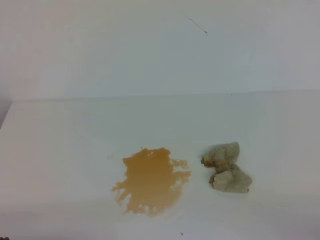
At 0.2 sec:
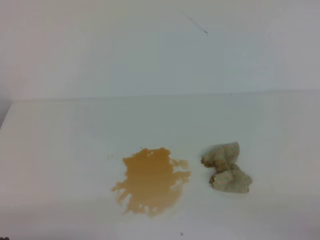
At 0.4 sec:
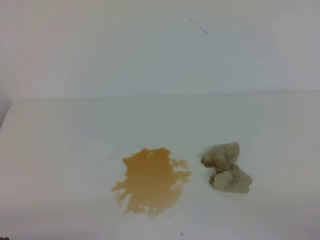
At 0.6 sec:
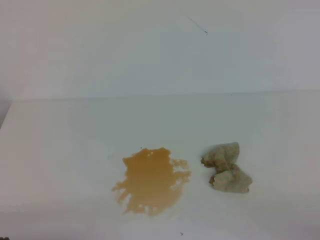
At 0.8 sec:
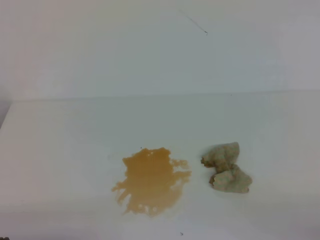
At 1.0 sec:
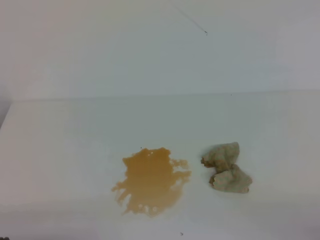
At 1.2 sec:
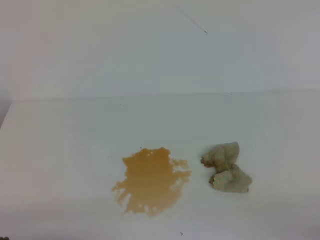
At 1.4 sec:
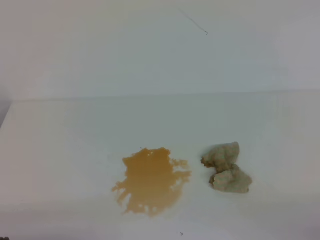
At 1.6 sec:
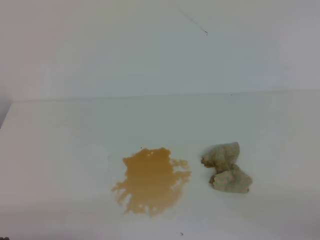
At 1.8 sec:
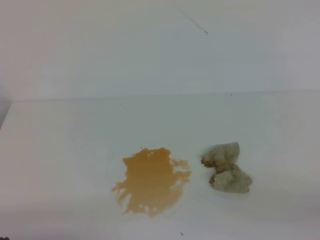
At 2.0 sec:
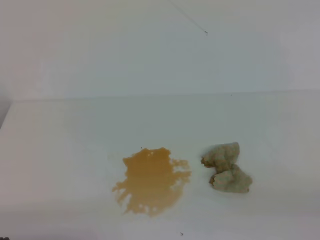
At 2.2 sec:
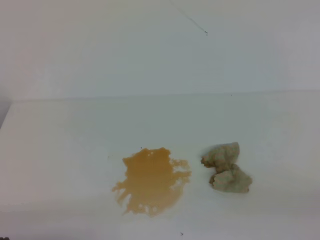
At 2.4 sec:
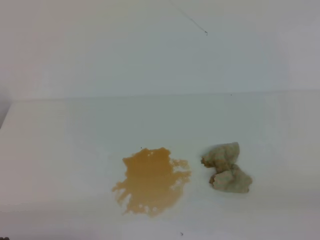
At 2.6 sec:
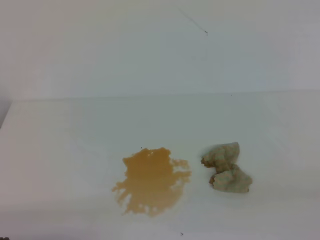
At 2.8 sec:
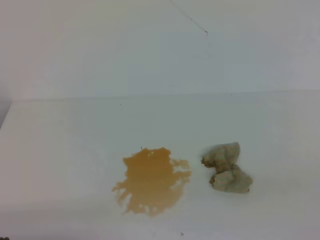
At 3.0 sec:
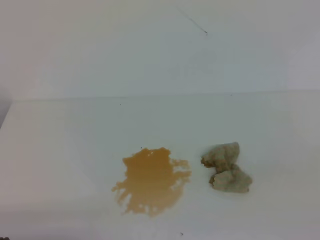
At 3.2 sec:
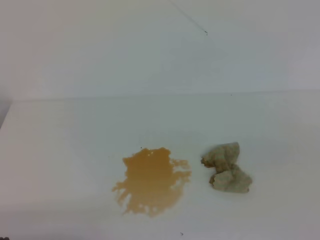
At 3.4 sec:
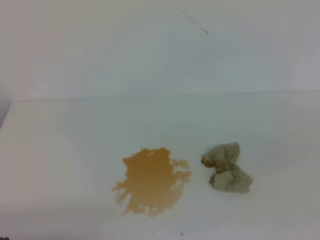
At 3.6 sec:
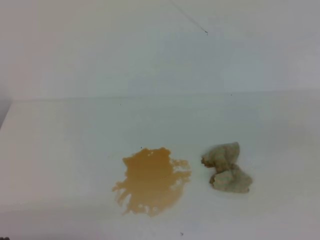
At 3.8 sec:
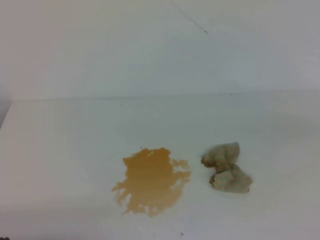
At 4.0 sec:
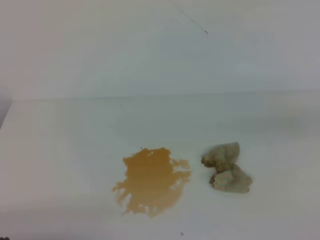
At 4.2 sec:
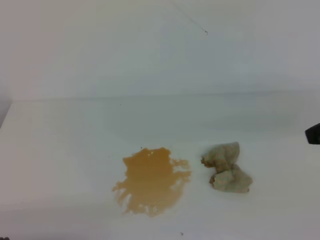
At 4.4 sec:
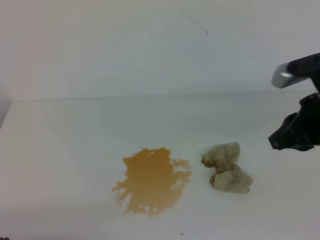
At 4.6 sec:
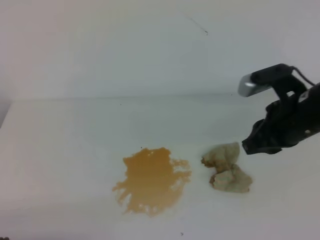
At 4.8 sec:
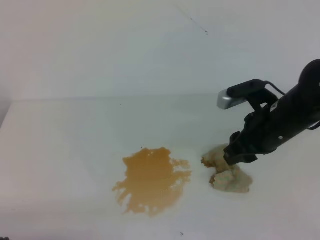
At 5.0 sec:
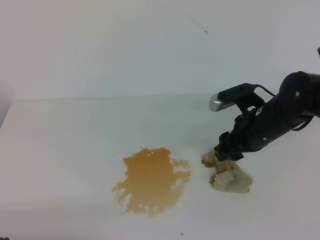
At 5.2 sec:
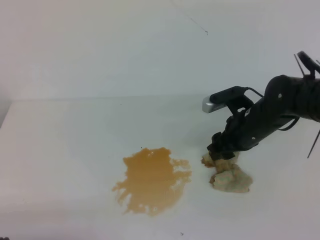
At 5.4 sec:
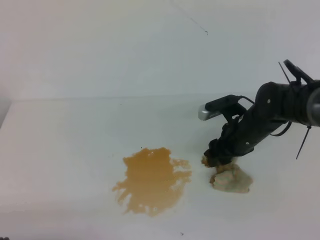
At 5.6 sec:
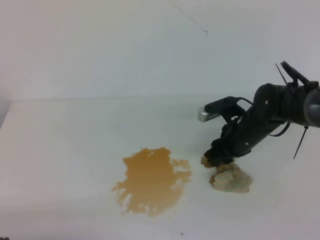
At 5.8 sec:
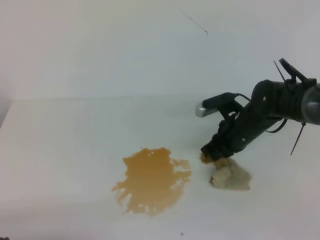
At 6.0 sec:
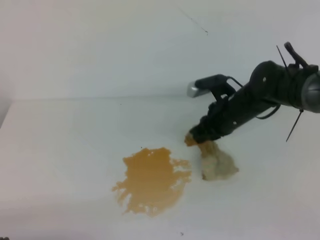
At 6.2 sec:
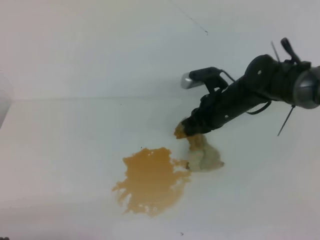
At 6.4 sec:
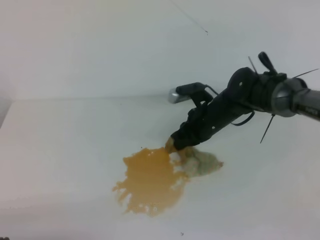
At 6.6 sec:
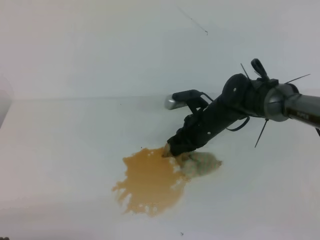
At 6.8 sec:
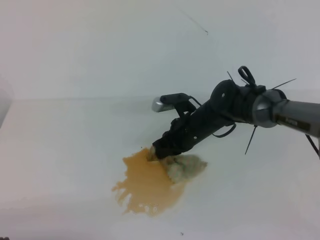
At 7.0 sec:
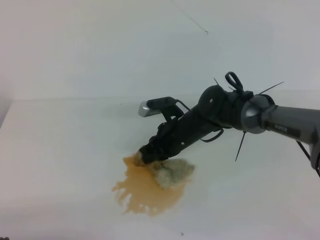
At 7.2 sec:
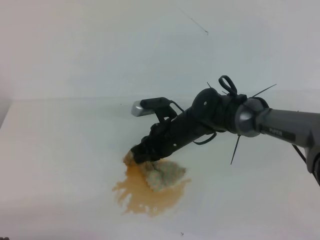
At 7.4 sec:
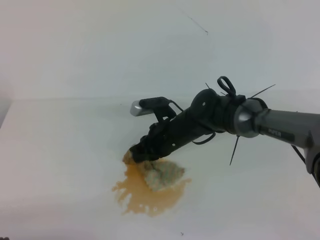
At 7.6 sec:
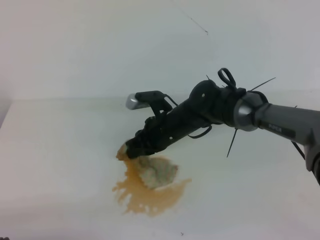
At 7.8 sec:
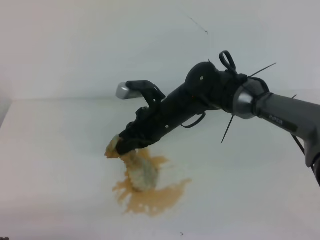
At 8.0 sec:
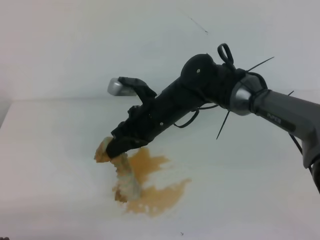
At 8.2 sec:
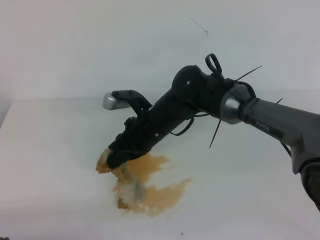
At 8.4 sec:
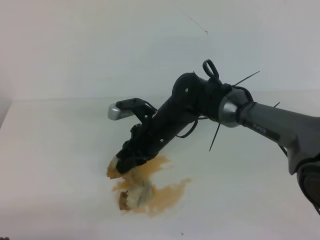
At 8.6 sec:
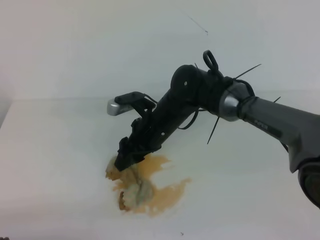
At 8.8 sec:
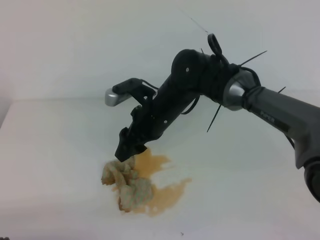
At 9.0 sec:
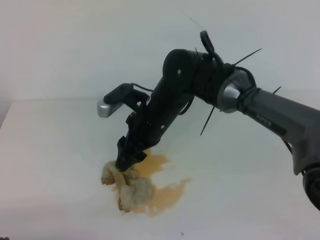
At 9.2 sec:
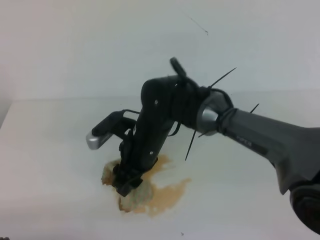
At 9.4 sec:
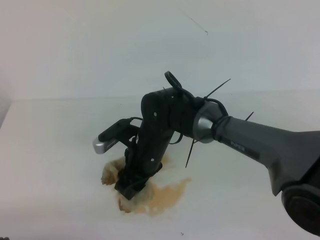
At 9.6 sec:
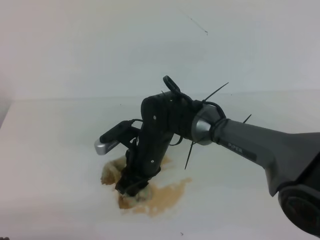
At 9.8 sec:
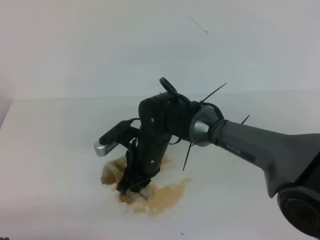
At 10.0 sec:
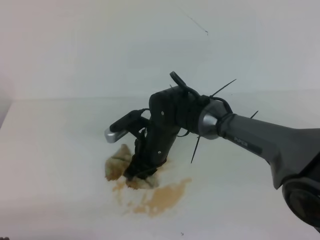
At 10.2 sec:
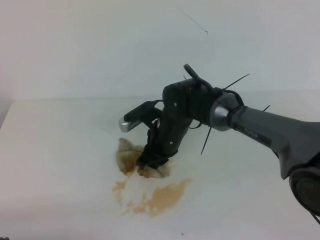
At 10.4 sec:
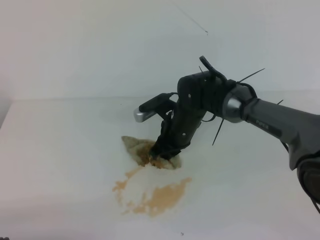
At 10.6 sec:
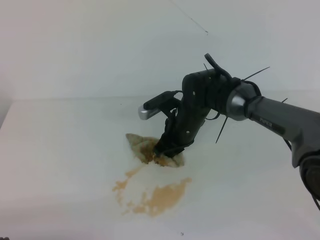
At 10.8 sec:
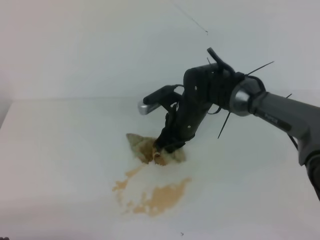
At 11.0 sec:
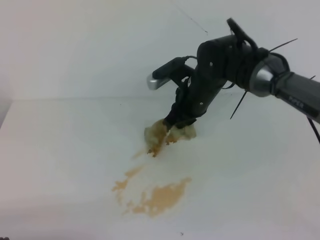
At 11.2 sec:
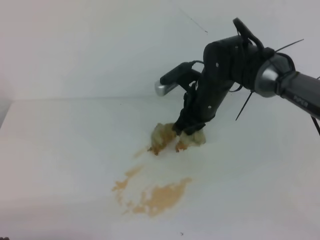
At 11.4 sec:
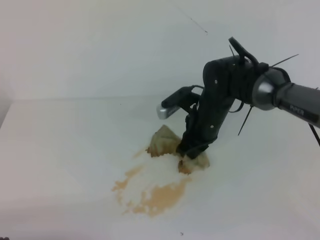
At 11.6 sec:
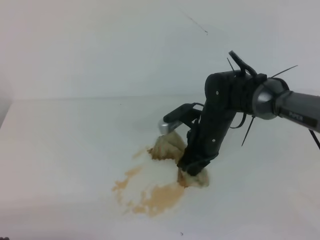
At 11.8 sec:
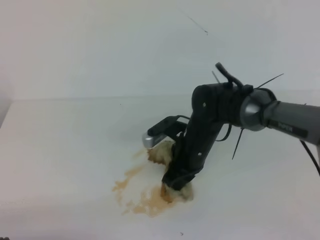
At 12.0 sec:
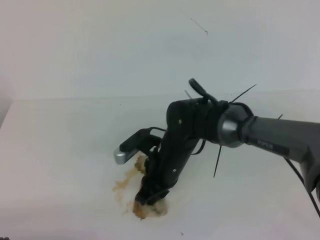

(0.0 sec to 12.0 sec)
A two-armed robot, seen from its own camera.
3.0 sec - 4.4 sec: The right gripper moves forward and to the left, roughly 25 cm.
4.4 sec - 6.0 sec: The right gripper heads forward, downward and to the left, covering about 20 cm, and opens and closes again.
6.0 sec - 7.6 sec: The right gripper goes some 10 cm to the left.
7.6 sec - 9.0 sec: The right gripper moves approximately 5 cm, and opens up.
9.0 sec - 10.4 sec: The right gripper travels downward by roughly 5 cm, and closes.
10.4 sec - 12.0 sec: The right gripper moves backward, approximately 5 cm.

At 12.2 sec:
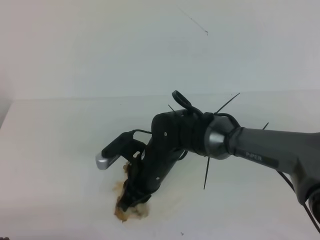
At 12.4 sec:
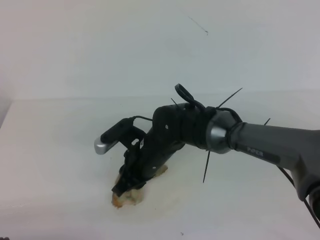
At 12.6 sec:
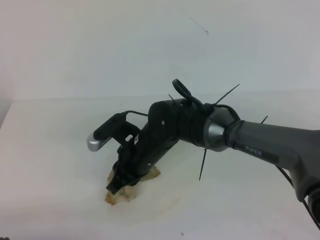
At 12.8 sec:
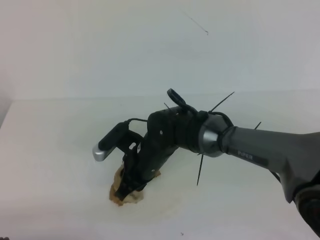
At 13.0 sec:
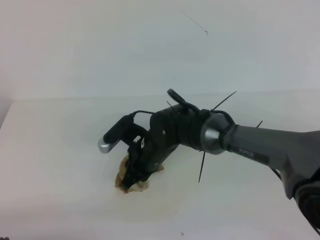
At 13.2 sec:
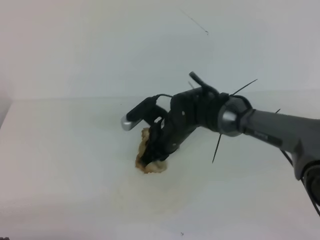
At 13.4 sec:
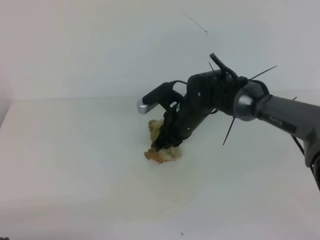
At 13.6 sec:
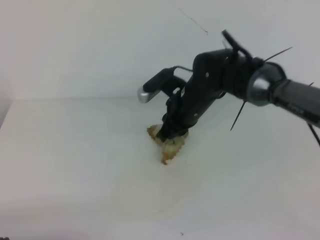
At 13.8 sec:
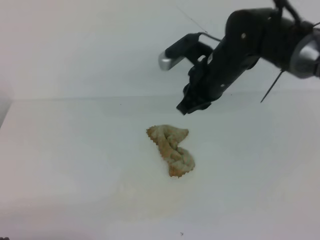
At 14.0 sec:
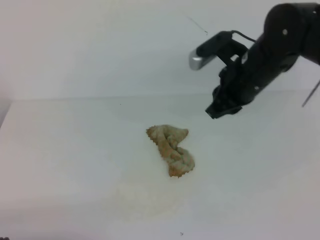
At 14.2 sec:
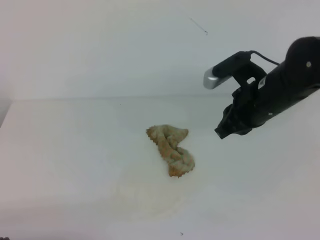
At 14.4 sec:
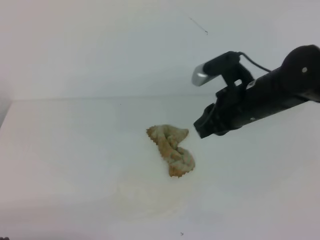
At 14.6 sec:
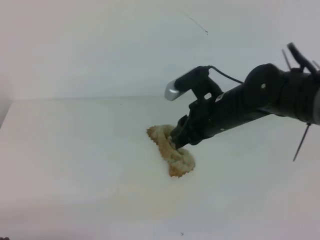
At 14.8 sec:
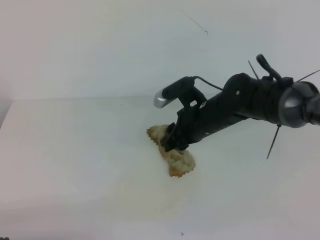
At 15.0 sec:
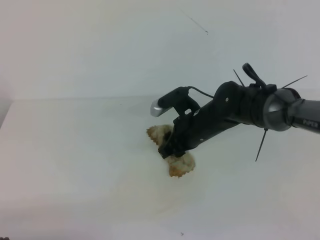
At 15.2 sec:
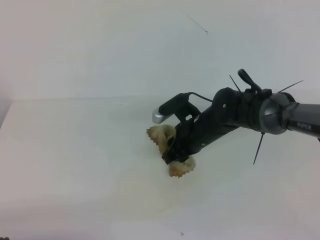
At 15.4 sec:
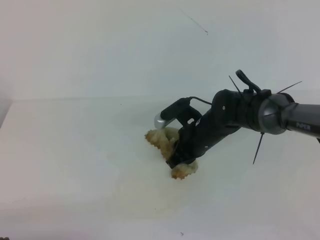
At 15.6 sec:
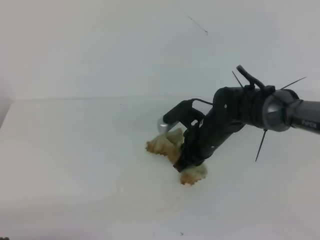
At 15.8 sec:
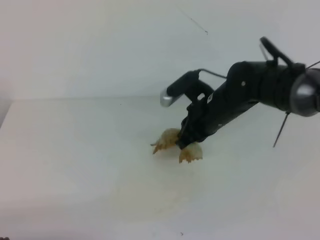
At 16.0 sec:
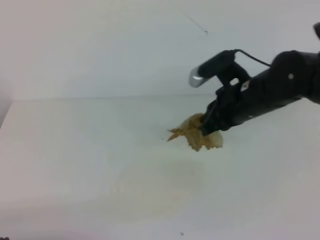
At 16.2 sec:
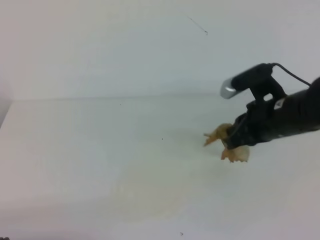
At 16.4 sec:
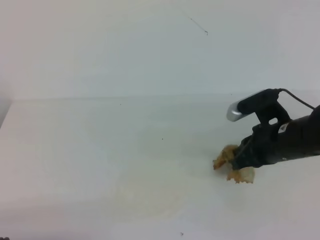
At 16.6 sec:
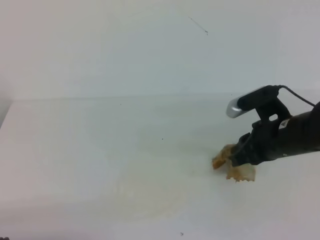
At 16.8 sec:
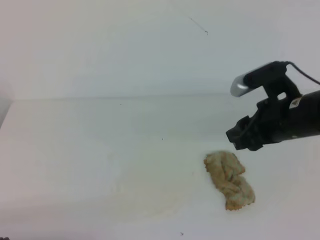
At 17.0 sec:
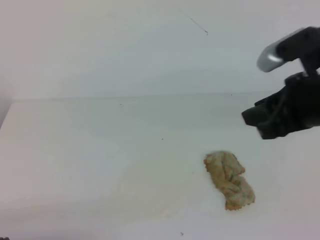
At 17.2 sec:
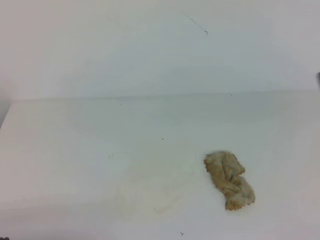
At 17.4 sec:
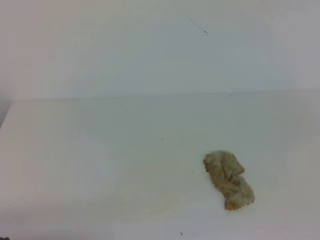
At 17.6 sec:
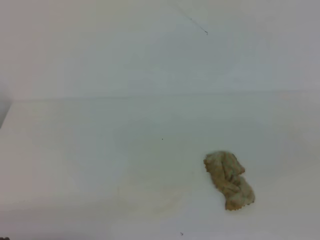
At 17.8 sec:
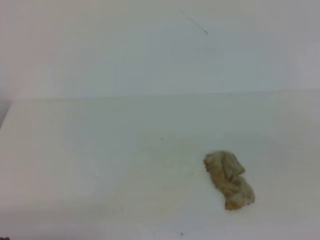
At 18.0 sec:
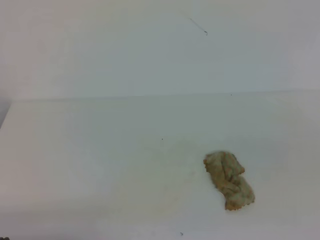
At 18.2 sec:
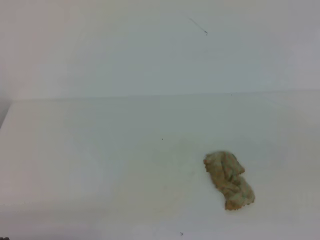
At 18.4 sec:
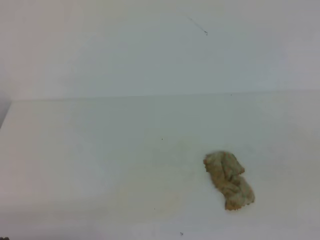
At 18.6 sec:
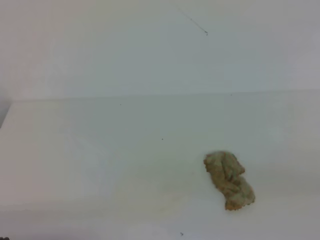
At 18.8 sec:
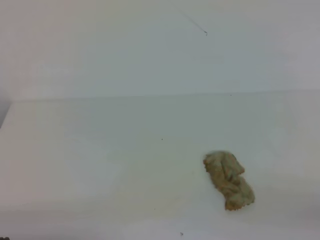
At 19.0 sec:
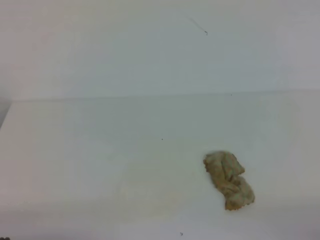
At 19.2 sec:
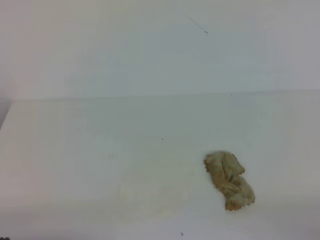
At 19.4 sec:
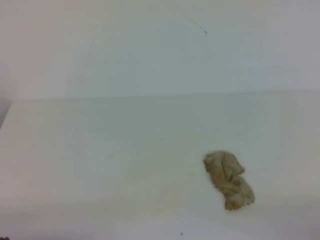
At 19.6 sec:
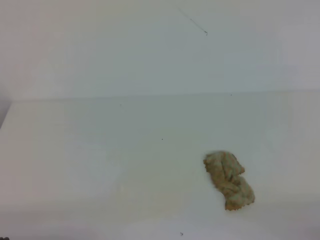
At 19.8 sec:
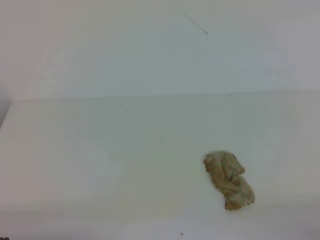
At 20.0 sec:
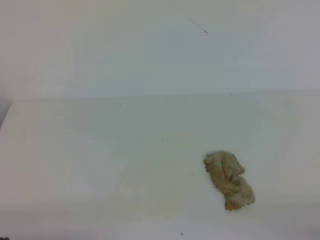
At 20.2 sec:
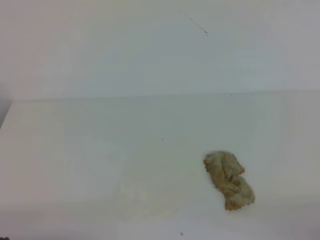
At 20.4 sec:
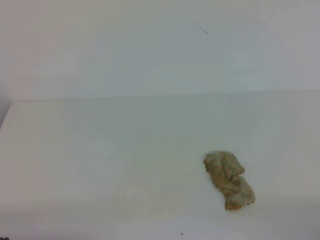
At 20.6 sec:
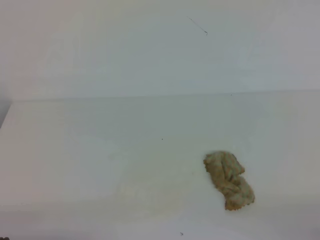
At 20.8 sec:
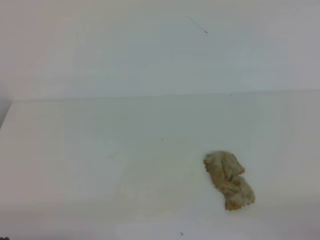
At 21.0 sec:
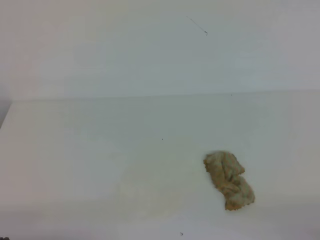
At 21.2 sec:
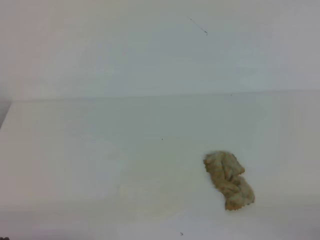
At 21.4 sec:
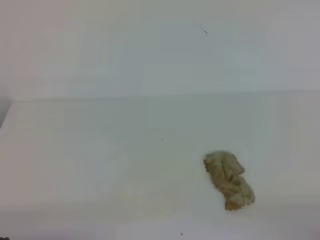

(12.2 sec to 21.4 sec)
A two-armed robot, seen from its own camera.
12.2 sec - 13.8 sec: The right gripper travels upward, to the right and forward by approximately 15 cm.
13.8 sec - 15.2 sec: The right gripper shifts approximately 10 cm downward.
15.2 sec - 16.8 sec: The right gripper is displaced to the right, upward and backward by about 20 cm, and closes and opens again.
16.8 sec - 18.4 sec: The right gripper moves backward and to the right, roughly 30 cm, and closes.
19.8 sec - 21.4 sec: Both grippers stay about where they are.
